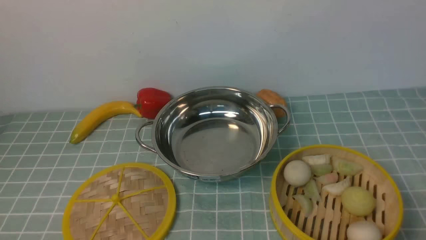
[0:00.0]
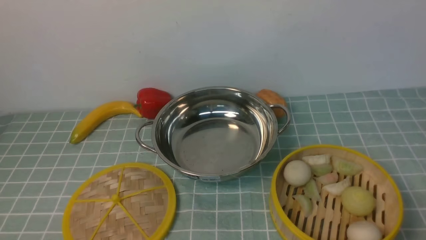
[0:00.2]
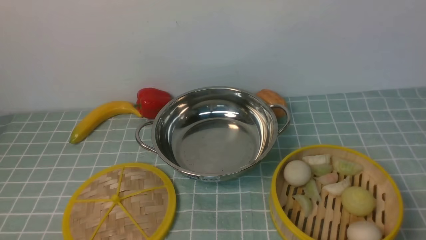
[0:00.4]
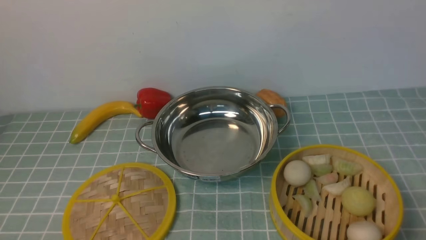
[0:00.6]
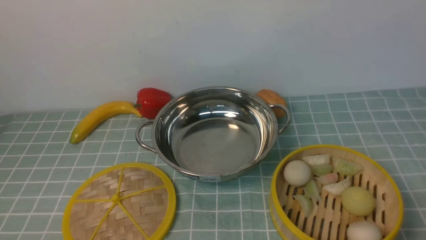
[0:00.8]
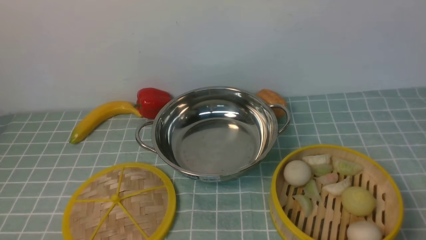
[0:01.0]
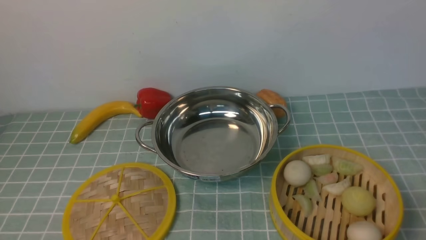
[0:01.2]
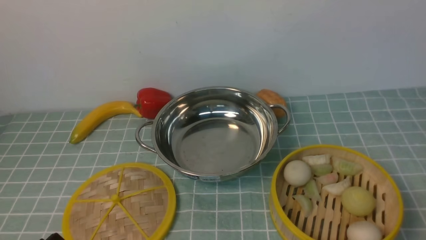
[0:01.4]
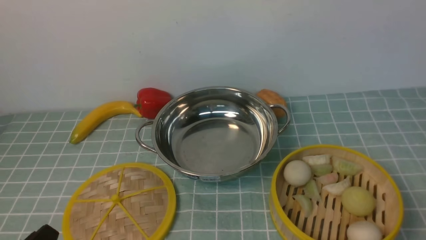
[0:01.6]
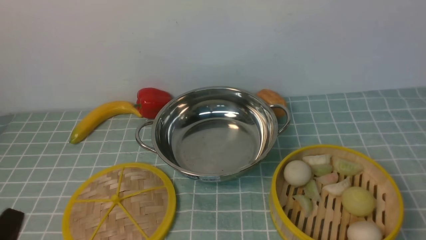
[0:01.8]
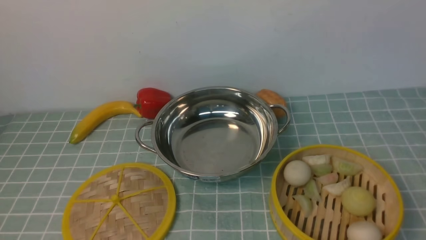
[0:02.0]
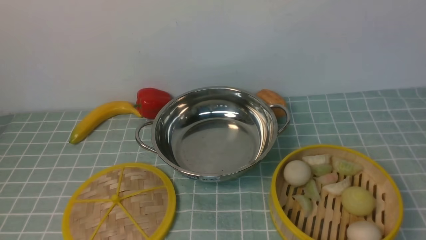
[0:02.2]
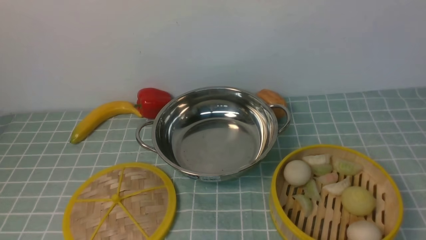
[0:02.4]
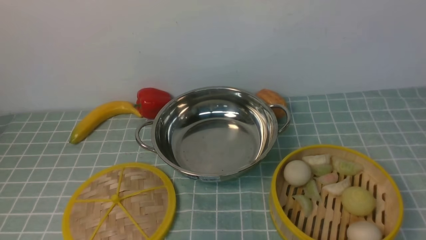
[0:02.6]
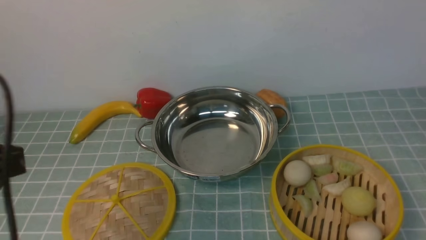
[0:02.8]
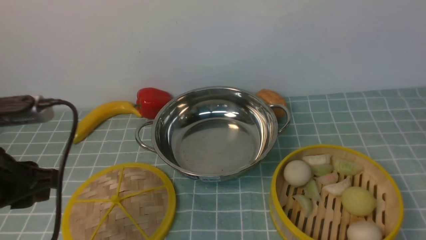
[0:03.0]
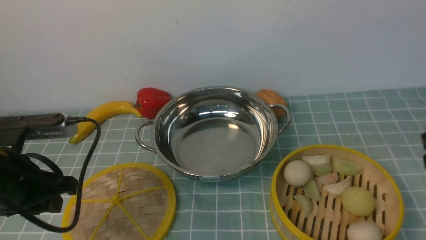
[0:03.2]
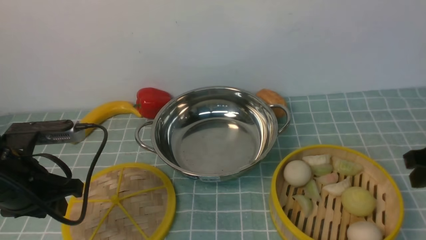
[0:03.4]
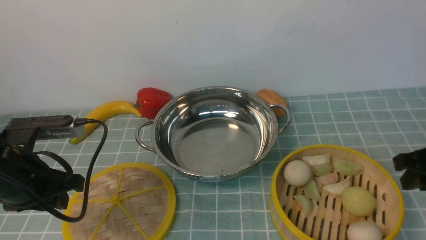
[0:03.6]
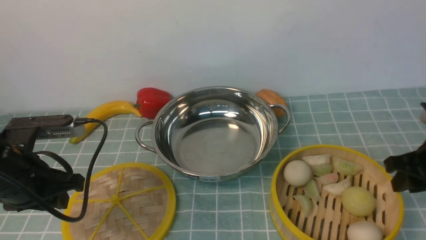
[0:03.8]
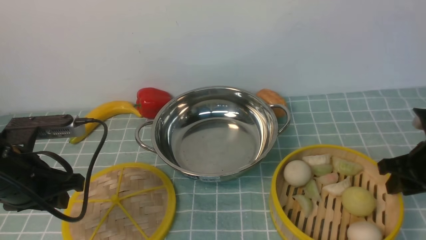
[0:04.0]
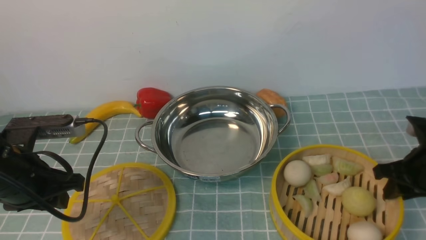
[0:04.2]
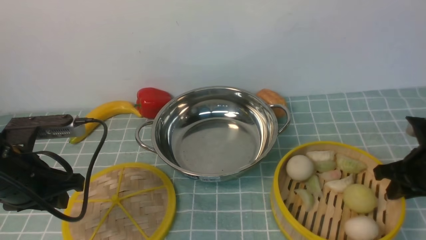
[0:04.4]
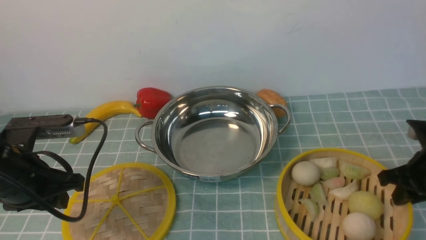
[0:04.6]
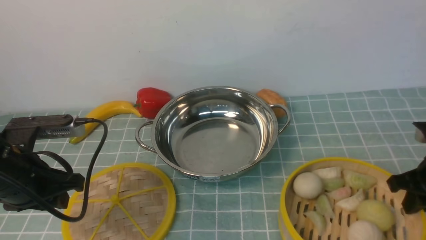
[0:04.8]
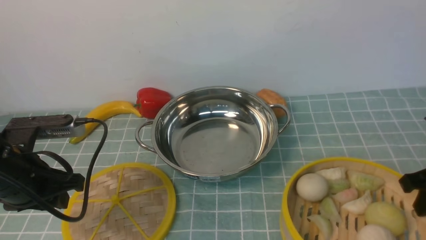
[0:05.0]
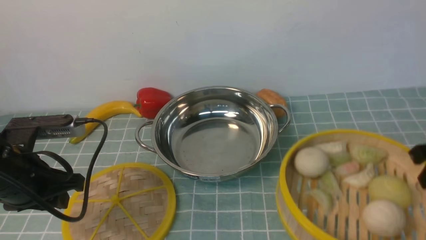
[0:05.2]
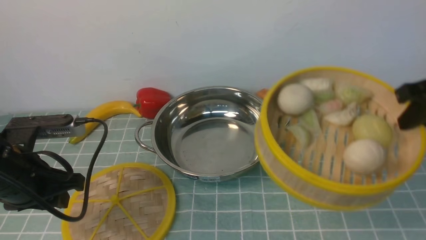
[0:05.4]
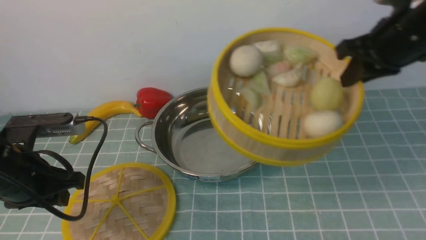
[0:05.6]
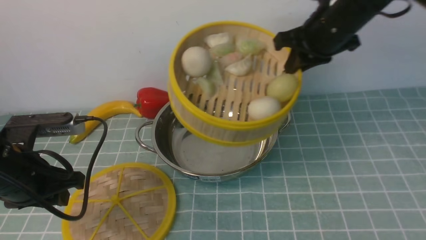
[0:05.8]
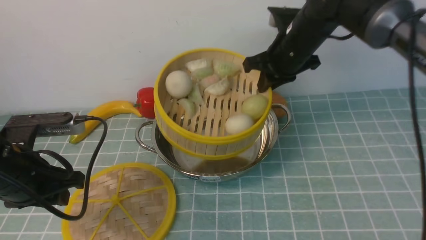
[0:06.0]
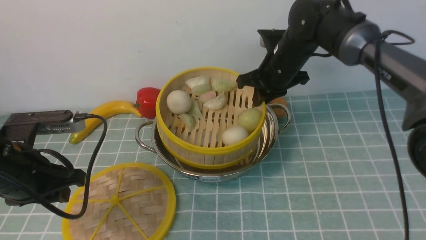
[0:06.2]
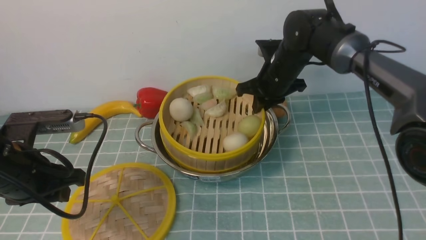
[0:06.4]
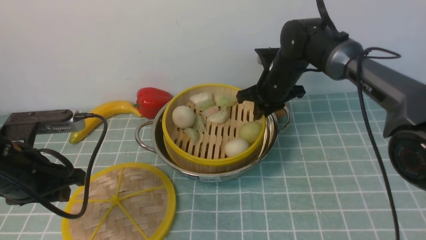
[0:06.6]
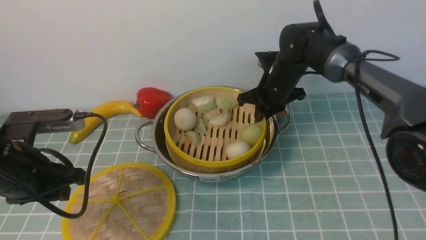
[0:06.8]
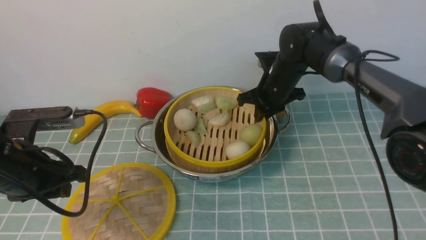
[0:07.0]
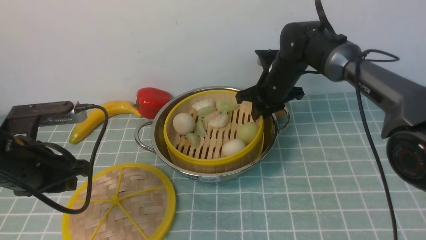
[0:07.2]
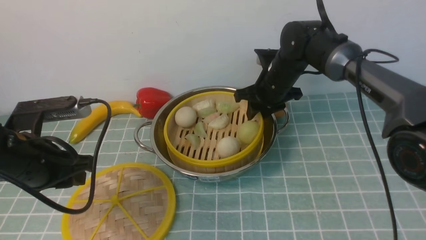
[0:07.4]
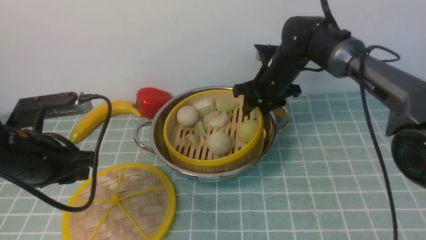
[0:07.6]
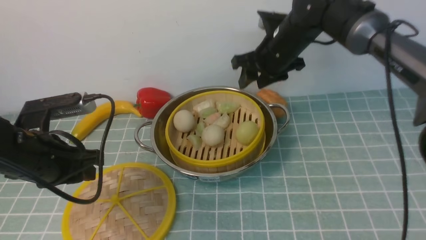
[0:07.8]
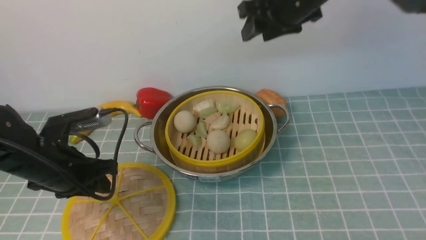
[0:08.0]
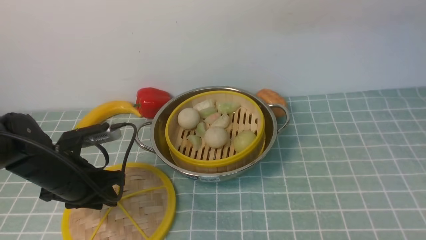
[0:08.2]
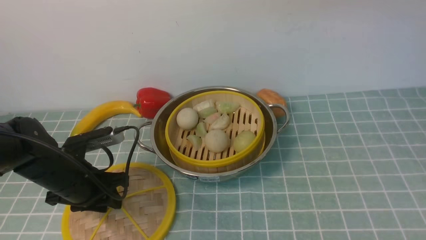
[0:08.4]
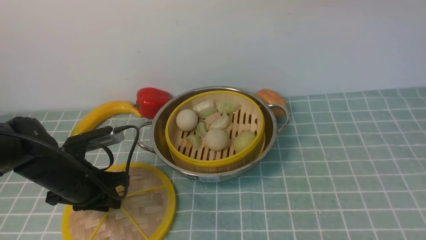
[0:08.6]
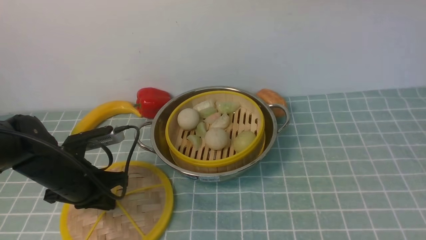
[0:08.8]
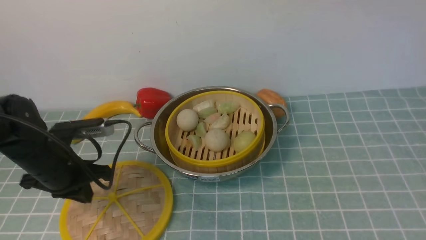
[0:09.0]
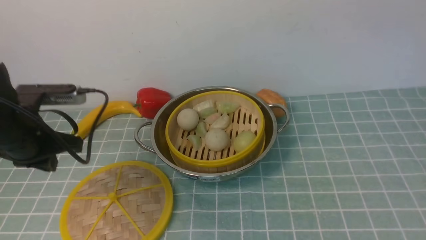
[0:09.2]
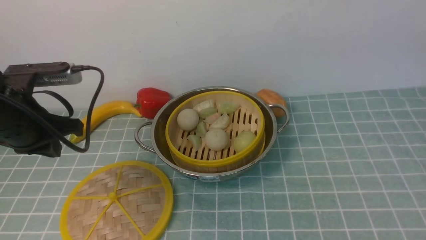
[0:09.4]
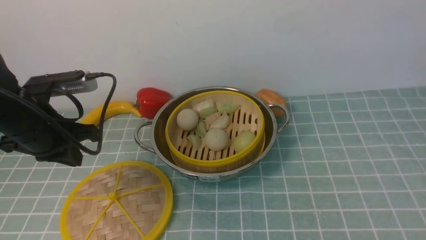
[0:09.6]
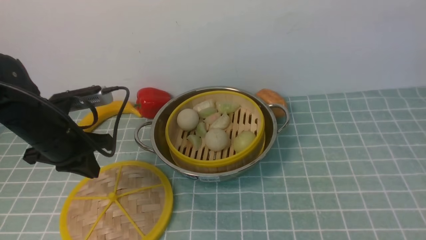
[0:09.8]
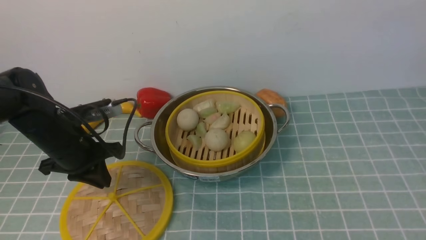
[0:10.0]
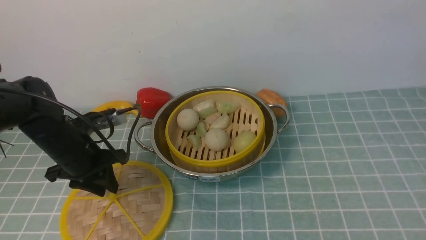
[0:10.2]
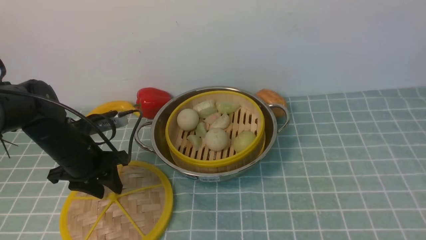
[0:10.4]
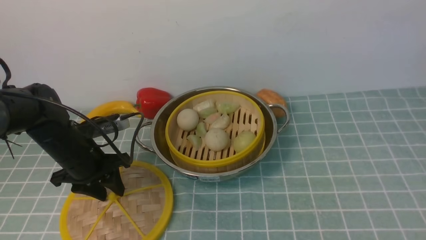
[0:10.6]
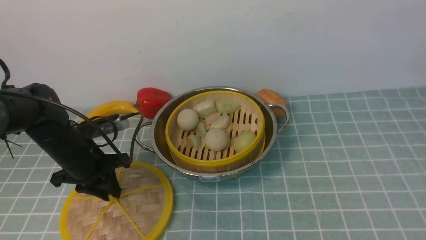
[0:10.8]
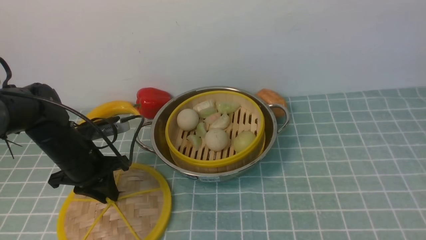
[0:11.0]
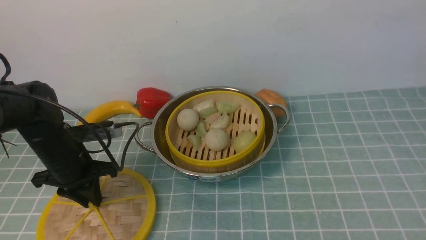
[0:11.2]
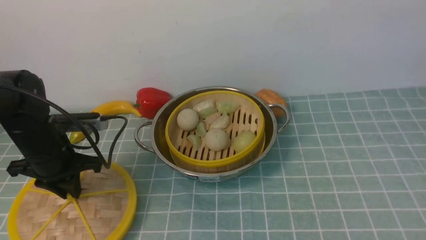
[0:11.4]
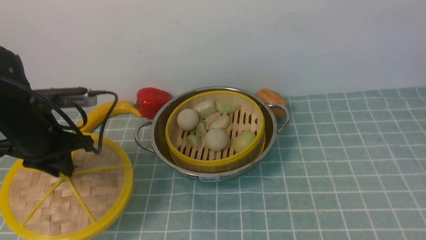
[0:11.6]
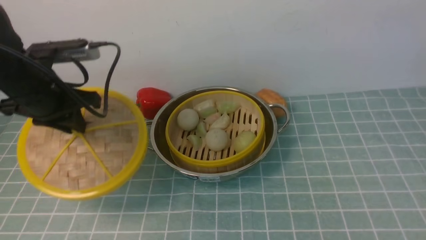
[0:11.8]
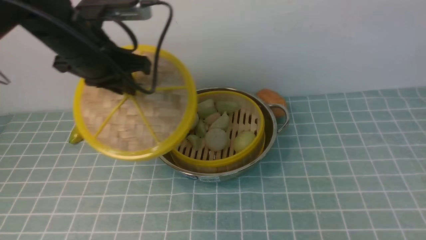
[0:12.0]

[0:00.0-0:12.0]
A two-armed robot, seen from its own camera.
Task of the whole recording: place the steamer in the pot on the blue tablecloth, and put the lid on the steamer.
Step, 0:00.0 to 0:04.8: use the right arm to lift the steamer closest to it.
Step, 0:05.0 to 0:07.8: use the right arm to put the steamer into the iron steamer pot in the middle.
Step, 0:08.0 to 0:11.4: use the left arm to lift the lid of the steamer.
0:01.6 to 0:03.0: The two grippers go some 20 cm forward and upward.
0:03.0 to 0:04.4: The right gripper goes approximately 20 cm downward and forward, and closes. Meanwhile the left gripper is displaced downward by roughly 5 cm.
0:04.4 to 0:06.0: The right gripper shifts about 25 cm to the left, forward and upward.
0:06.0 to 0:07.6: The right gripper opens.
0:07.6 to 0:09.0: The left gripper closes. The right gripper goes about 40 cm upward and backward.
0:09.0 to 0:10.4: The left gripper moves about 5 cm, and opens up.
0:10.4 to 0:12.0: The left gripper goes some 20 cm upward and to the right, and closes its fingers.

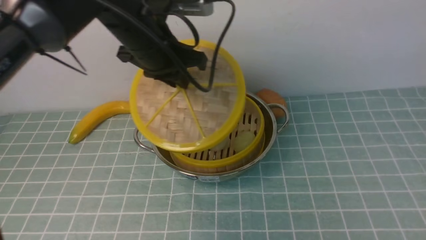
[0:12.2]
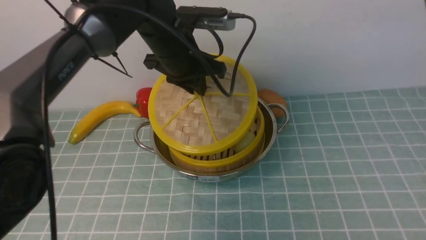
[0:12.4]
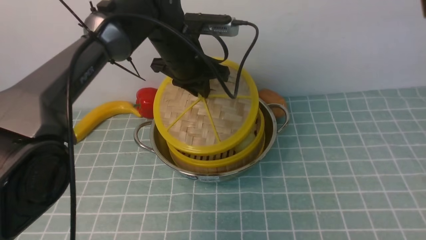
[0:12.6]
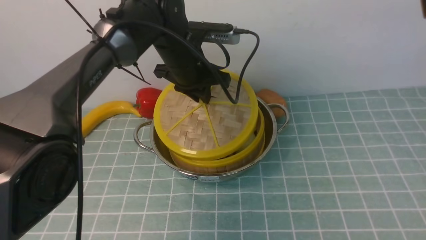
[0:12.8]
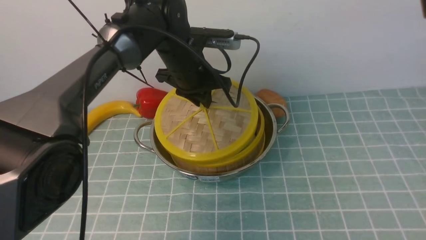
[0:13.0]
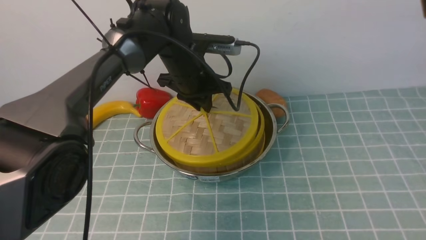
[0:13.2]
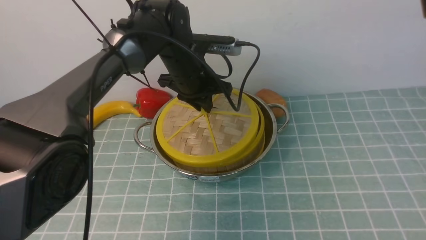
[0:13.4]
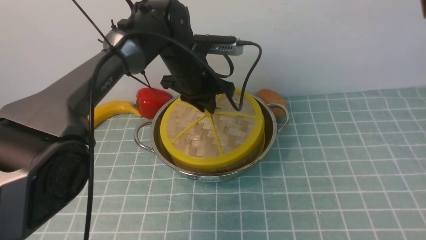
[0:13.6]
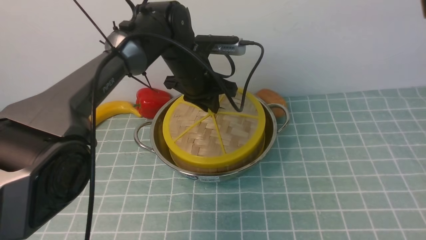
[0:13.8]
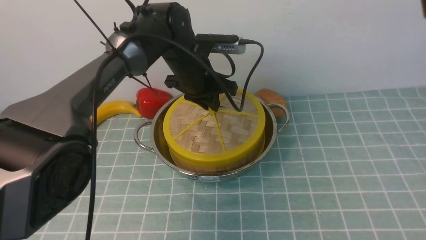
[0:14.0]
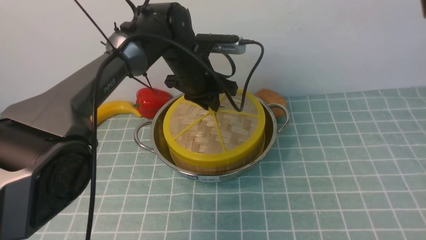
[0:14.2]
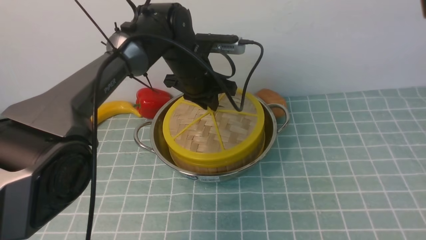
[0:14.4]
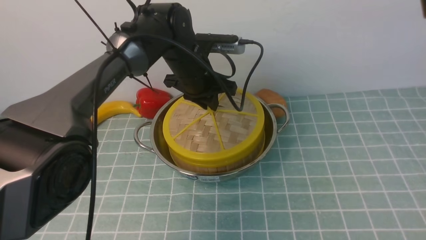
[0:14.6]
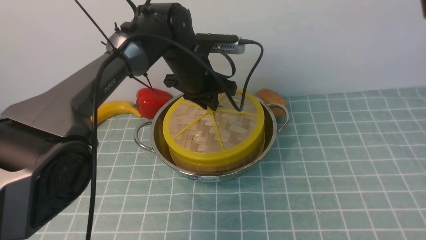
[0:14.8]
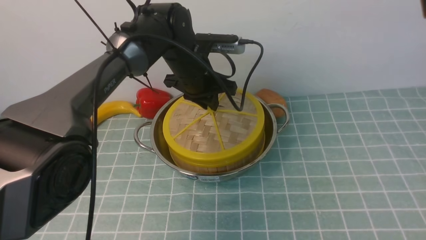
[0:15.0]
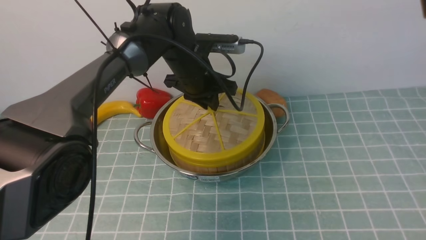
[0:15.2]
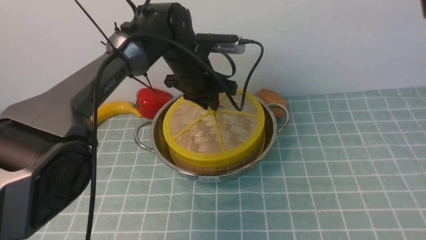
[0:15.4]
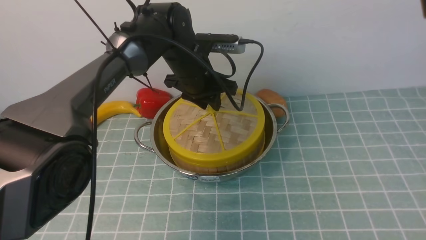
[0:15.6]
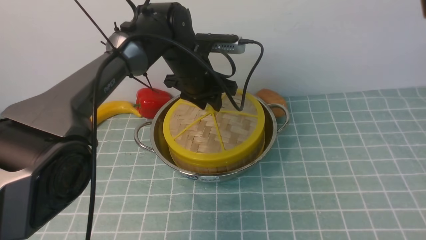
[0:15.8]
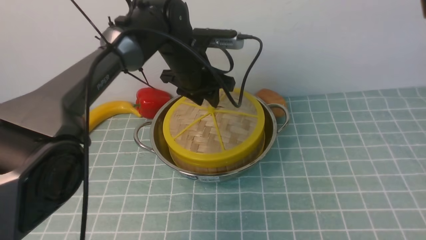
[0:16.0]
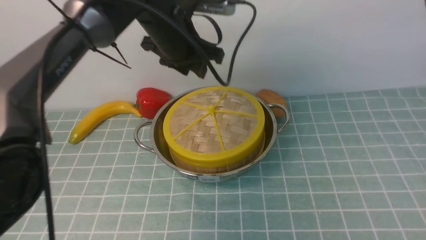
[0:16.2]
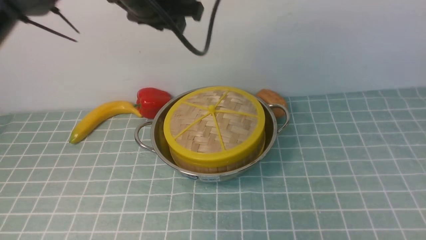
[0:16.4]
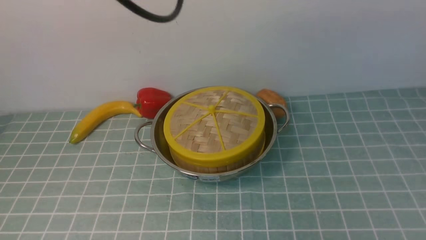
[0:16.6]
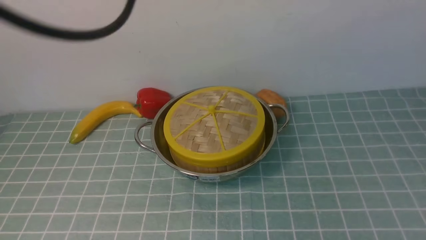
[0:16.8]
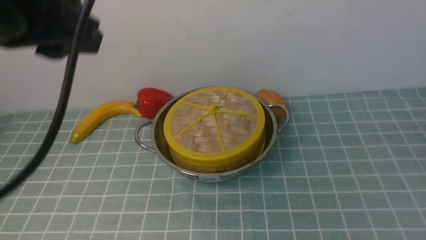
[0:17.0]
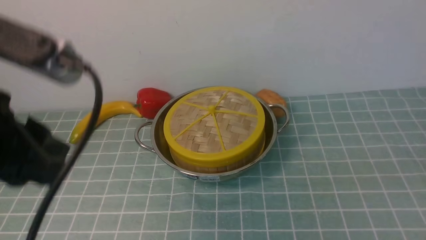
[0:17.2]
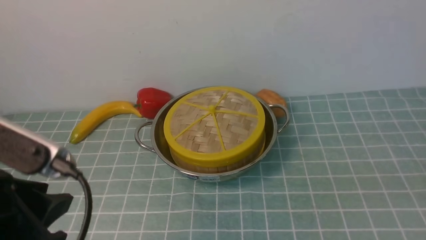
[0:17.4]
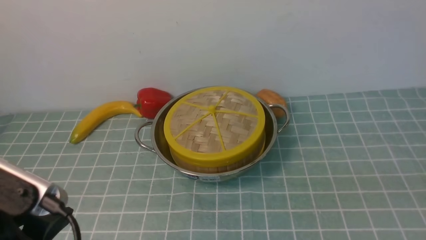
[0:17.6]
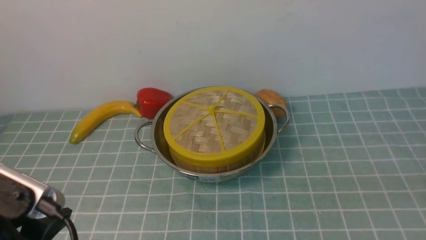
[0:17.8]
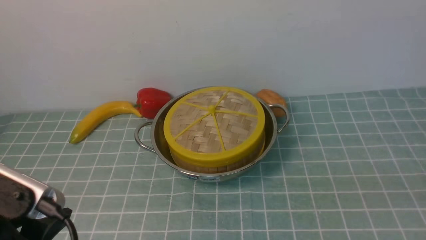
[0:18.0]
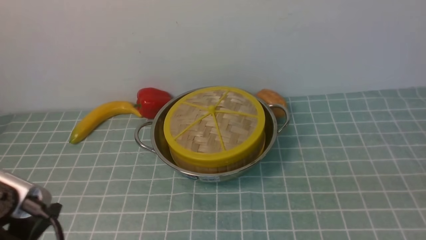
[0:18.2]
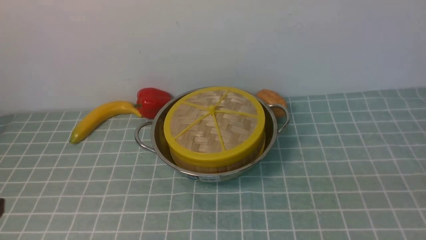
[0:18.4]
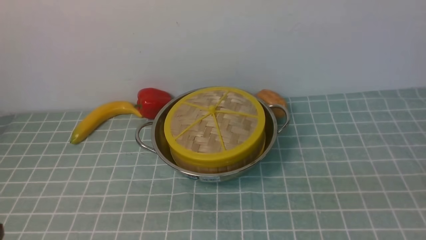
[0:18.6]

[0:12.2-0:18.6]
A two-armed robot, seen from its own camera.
Task of the whole recording: place the steamer in the pot on the blue tablecloth, and put the lid on the steamer.
Step, 0:12.2 to 0:16.2: use the left arm to place the steamer lid on the steamer.
0:12.2 to 0:13.8: The left gripper is displaced downward, forward and to the right by some 10 cm.
0:13.8 to 0:15.4: Both grippers stay put.
0:15.4 to 0:17.0: The left gripper shifts approximately 35 cm backward, upward and to the left, and opens its fingers. The right gripper heads backward, downward and to the right, covering some 15 cm.
0:17.0 to 0:18.6: The left gripper is displaced downward and backward by about 25 cm.
